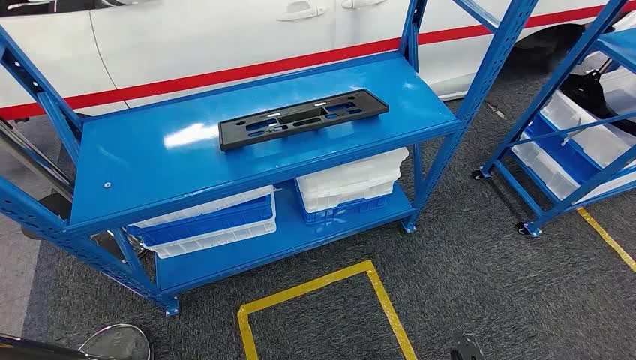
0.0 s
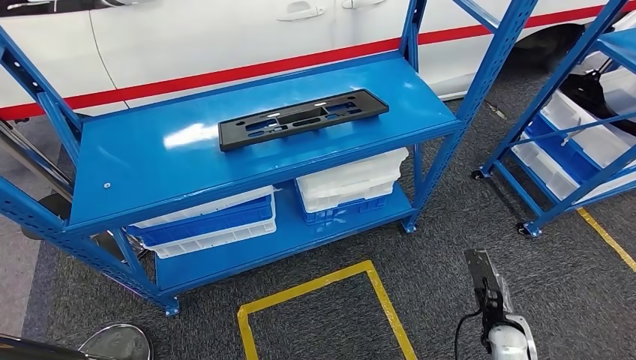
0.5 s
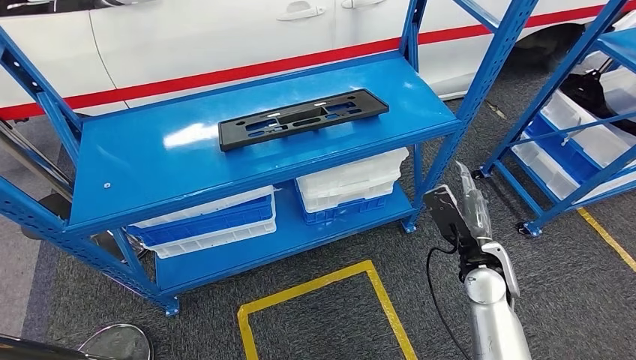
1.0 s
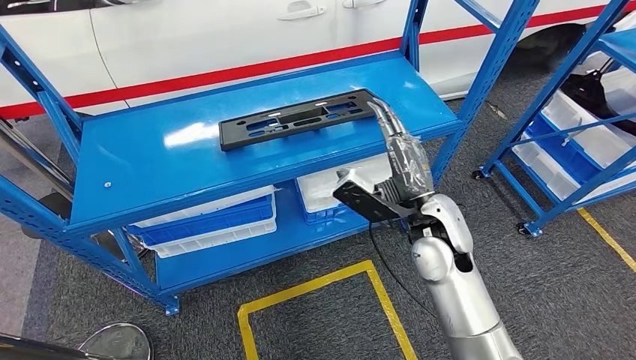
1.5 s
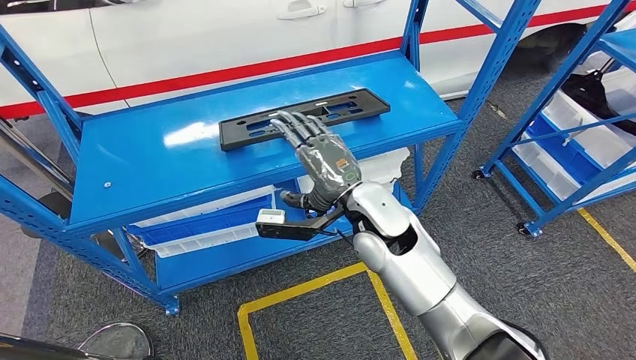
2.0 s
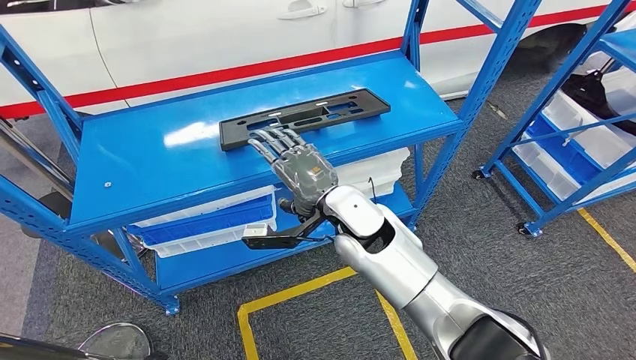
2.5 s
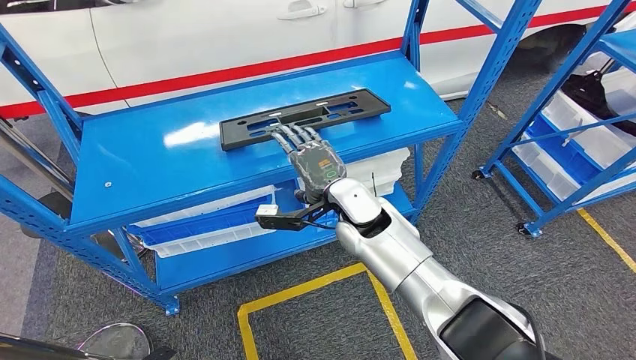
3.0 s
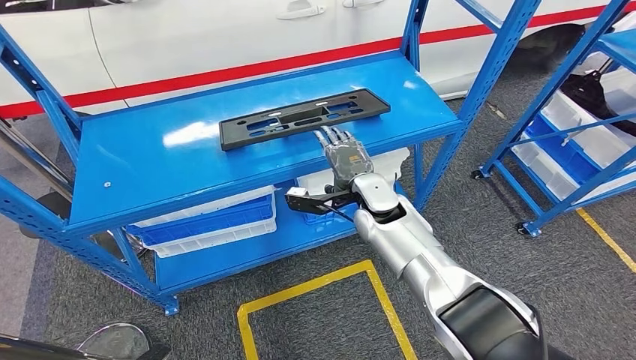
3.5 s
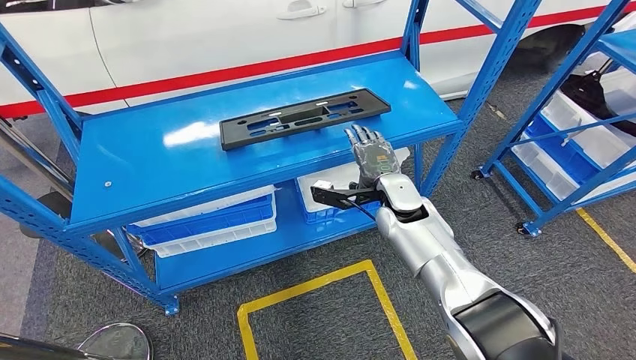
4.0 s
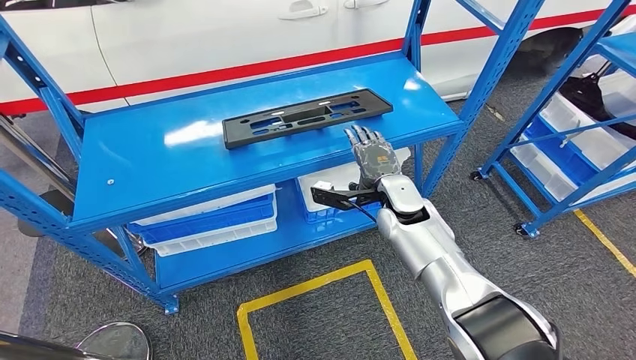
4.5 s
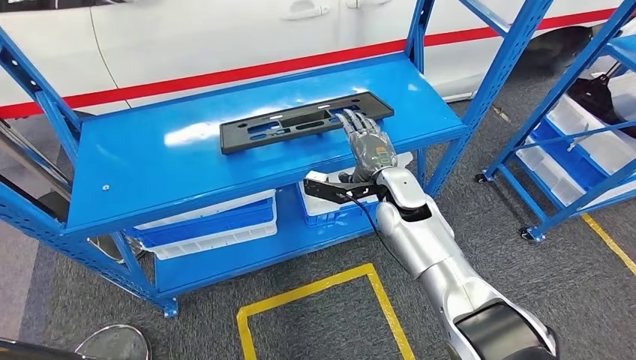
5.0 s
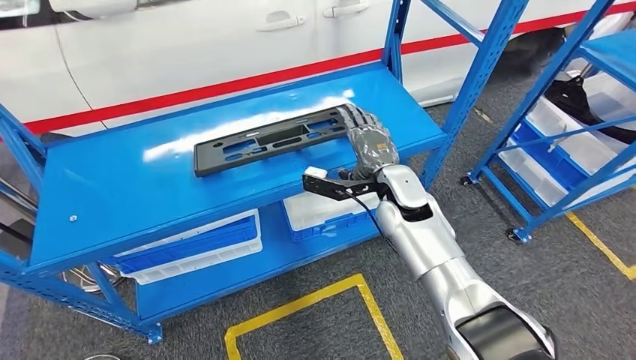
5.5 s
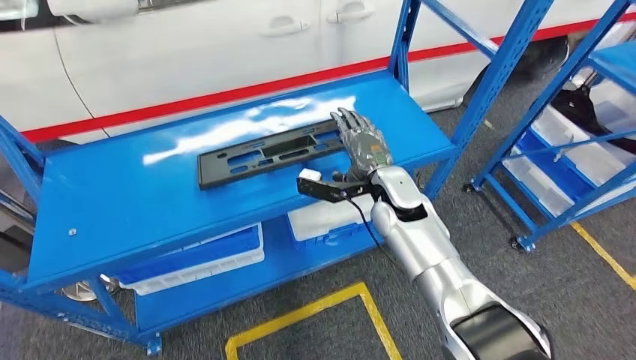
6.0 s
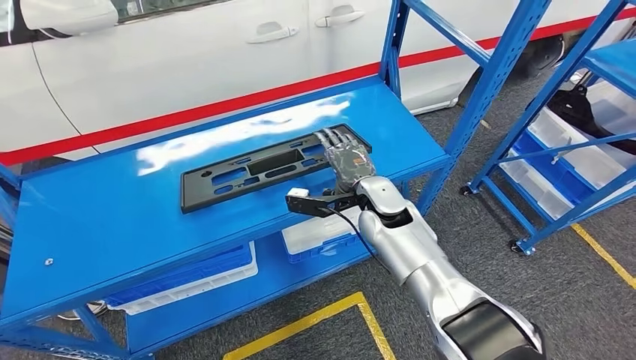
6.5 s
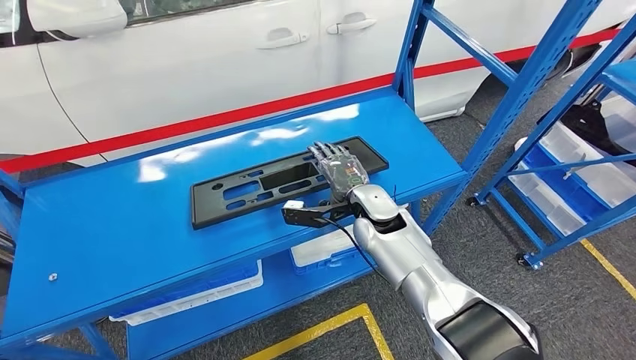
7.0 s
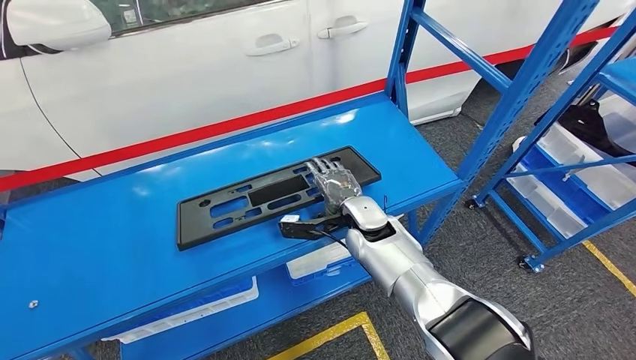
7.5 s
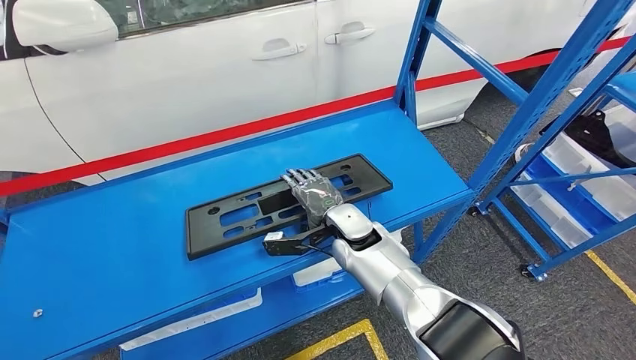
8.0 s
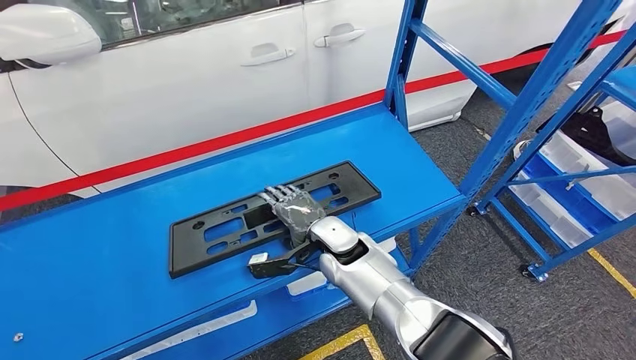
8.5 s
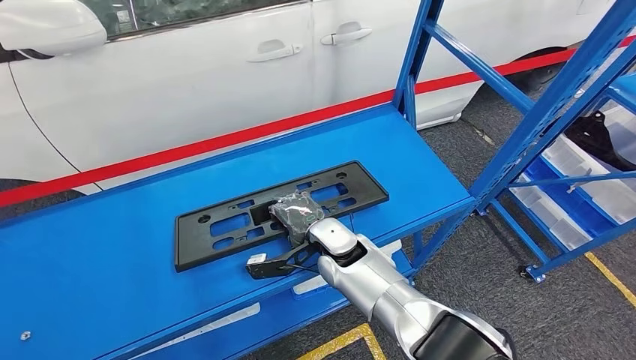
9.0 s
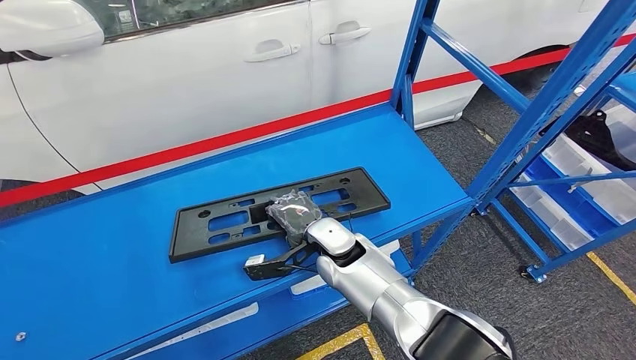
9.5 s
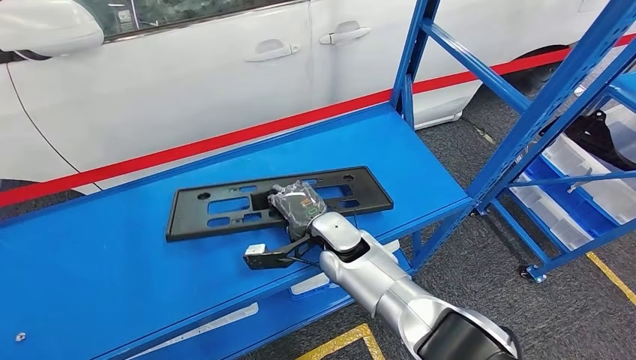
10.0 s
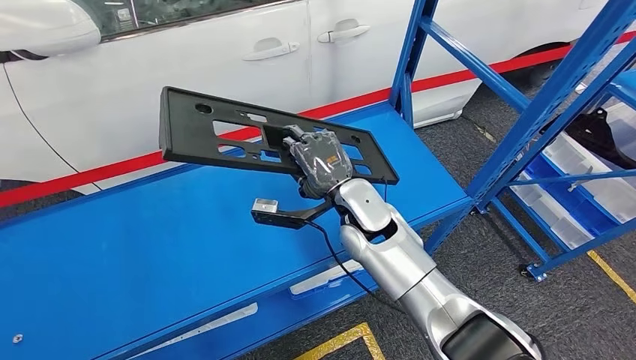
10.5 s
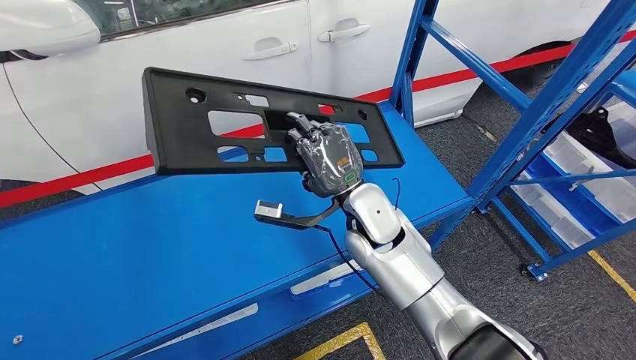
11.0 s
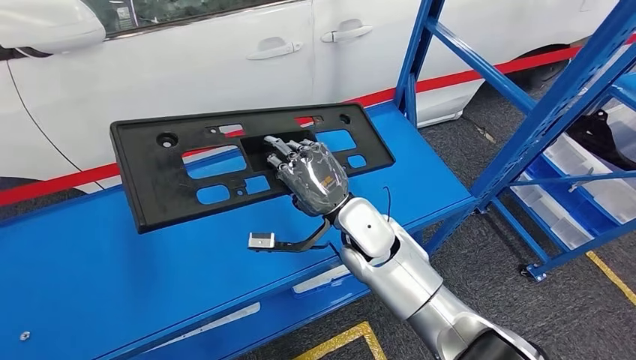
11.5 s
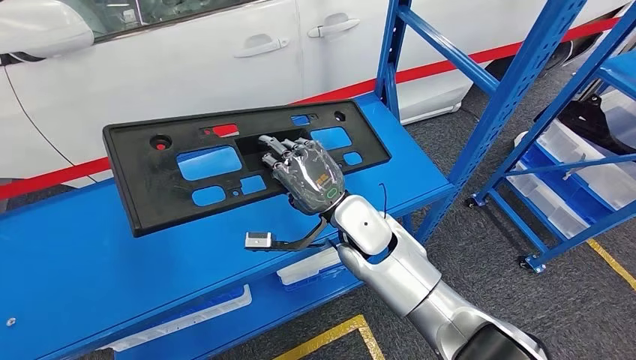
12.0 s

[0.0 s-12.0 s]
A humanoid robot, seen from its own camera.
2.0 to 4.0 s: The right hand travels to the right, forward and downward by some 15 cm. Meanwhile the left hand moves backward and to the left, approximately 10 cm.

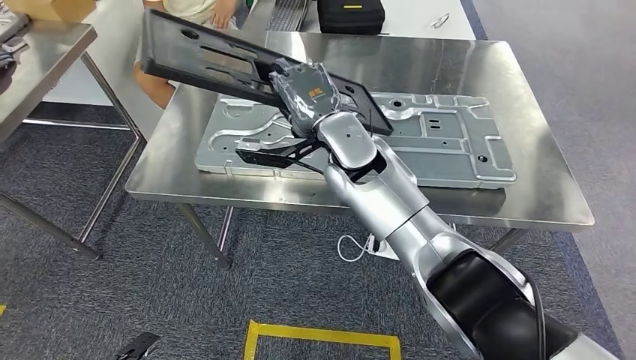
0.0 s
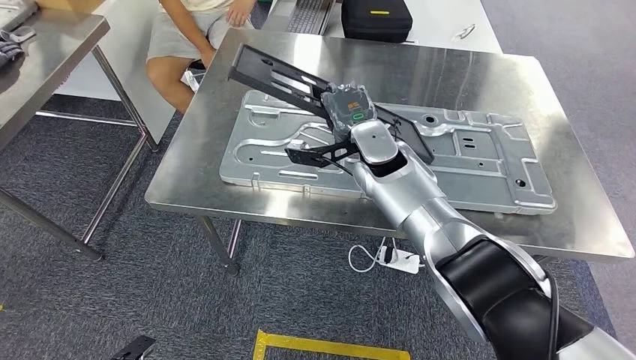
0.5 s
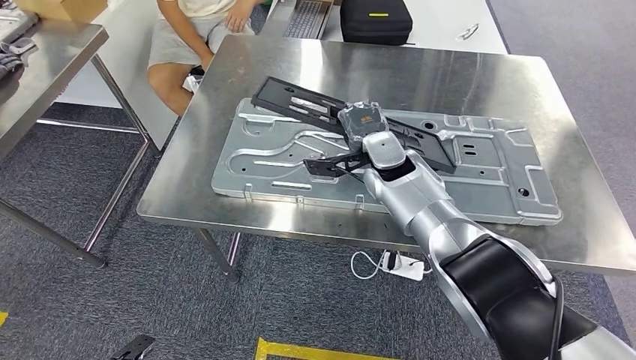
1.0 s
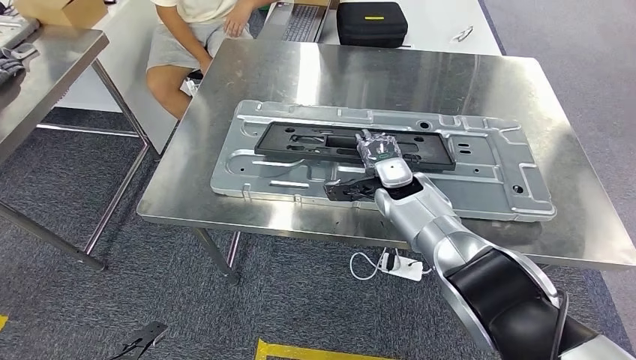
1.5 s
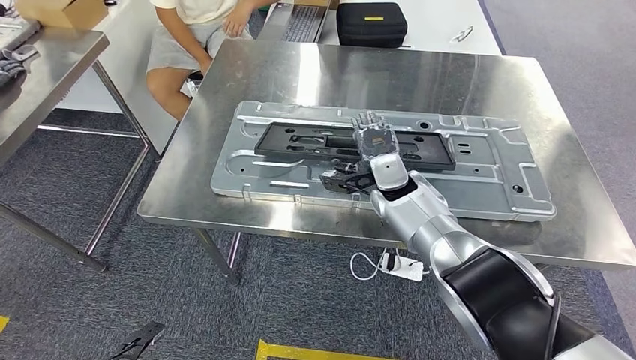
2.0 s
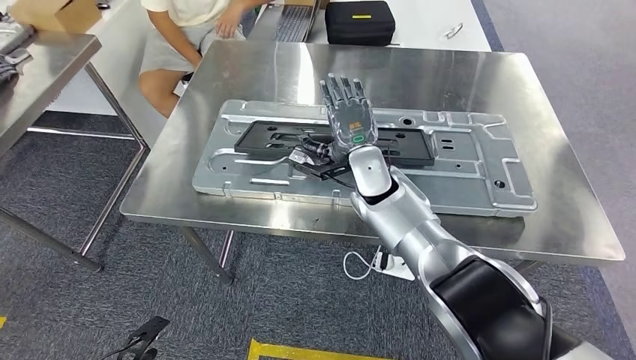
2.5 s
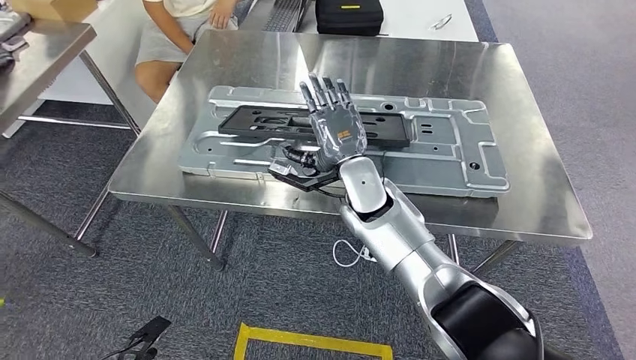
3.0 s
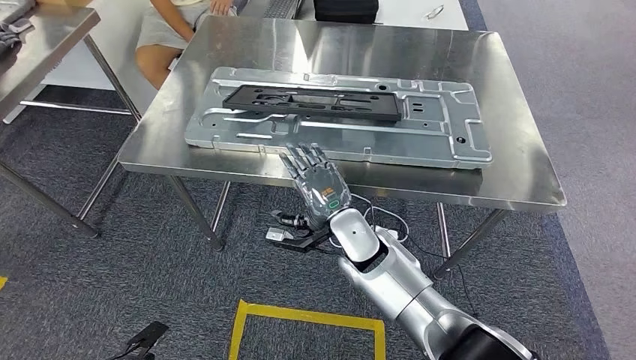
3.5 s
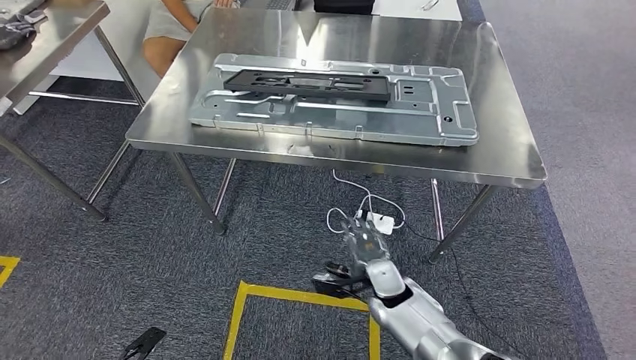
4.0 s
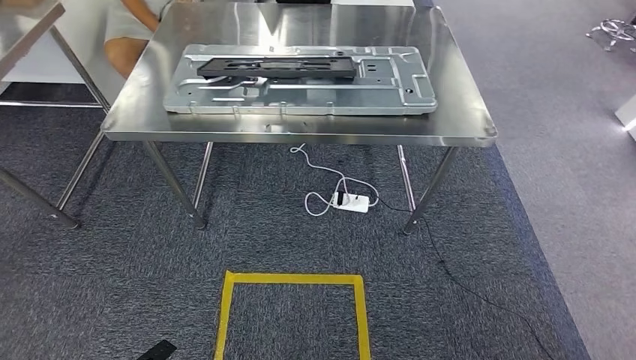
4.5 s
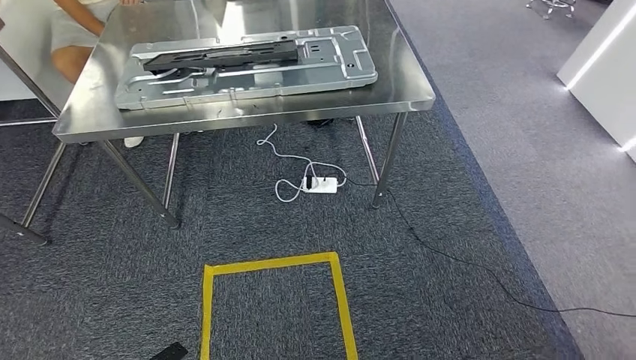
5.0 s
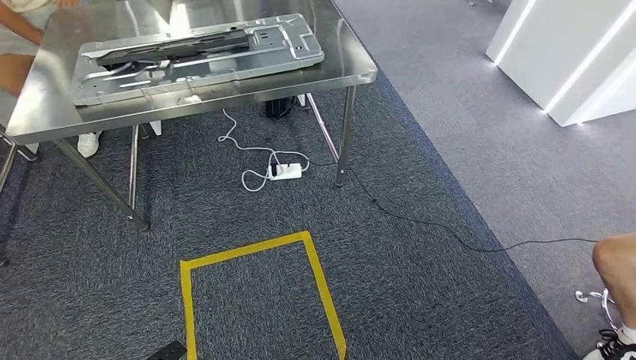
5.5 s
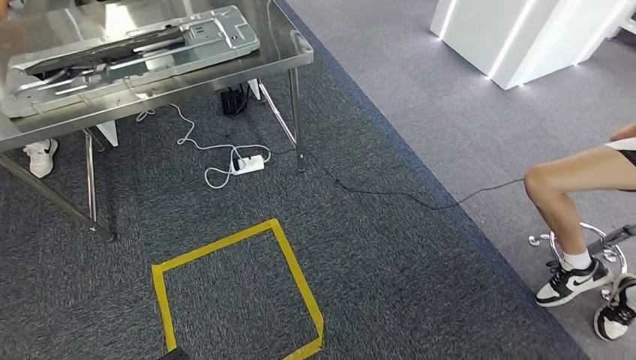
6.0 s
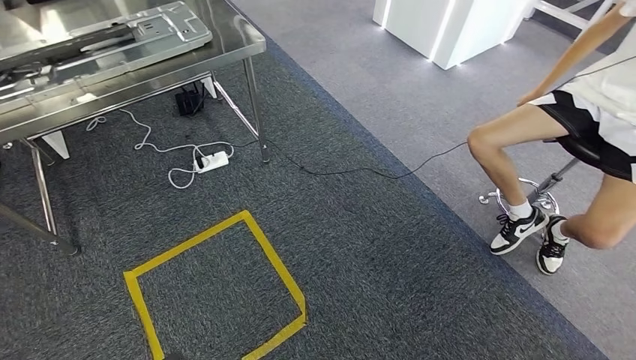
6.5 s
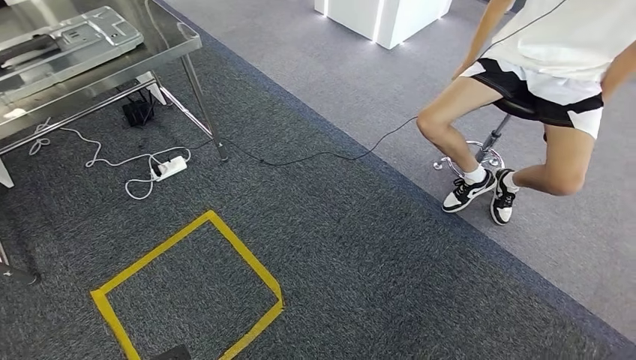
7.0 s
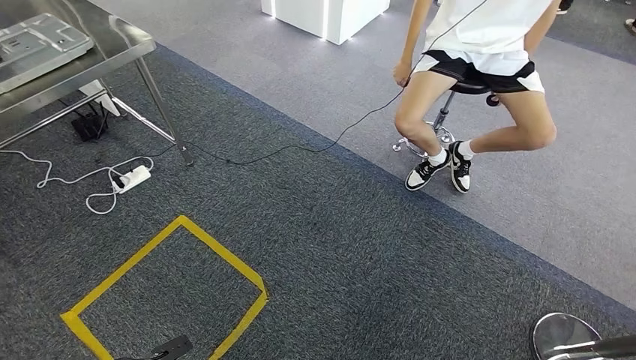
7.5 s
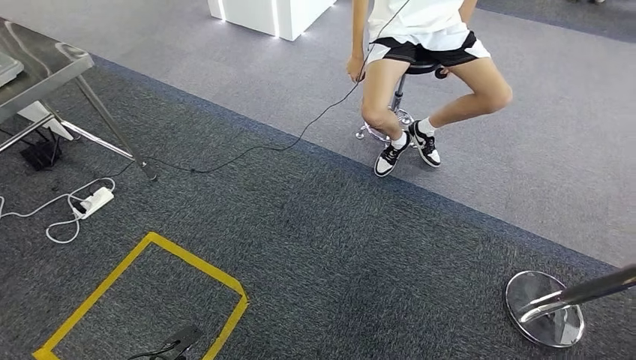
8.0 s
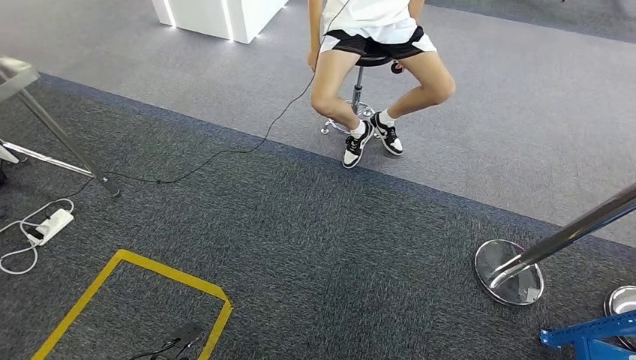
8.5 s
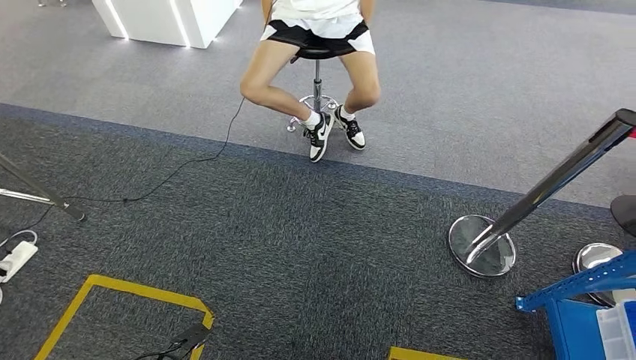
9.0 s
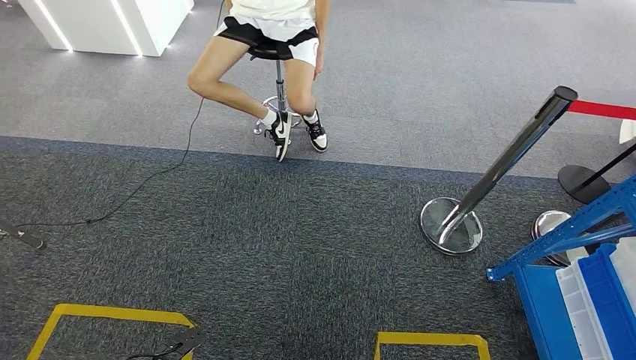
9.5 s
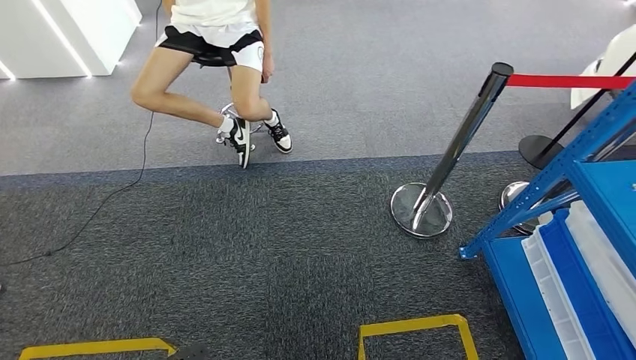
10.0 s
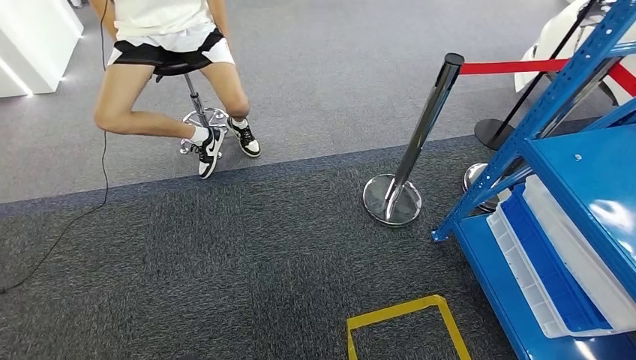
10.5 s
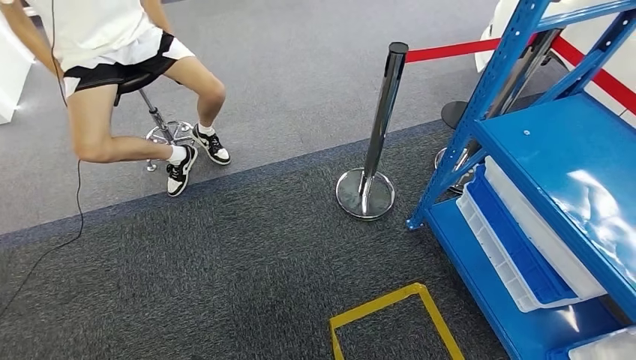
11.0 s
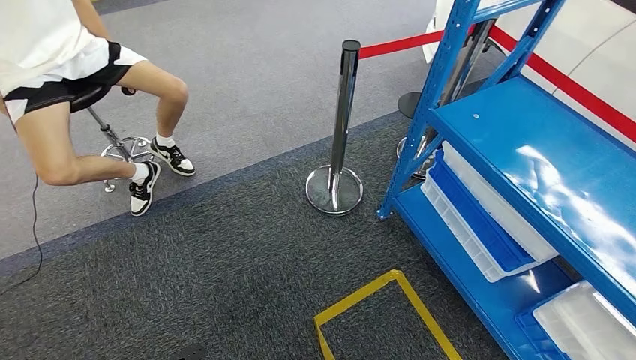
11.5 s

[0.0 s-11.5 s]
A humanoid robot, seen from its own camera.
Step, 0.5 to 4.0 s: Insert the large material into the corresponding slot on the workbench.
